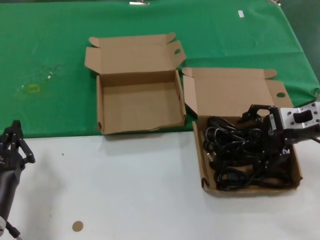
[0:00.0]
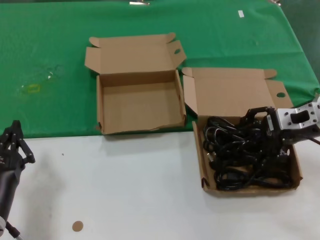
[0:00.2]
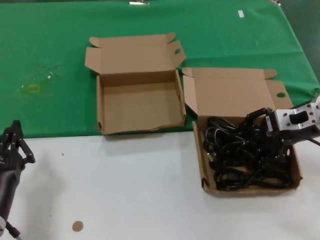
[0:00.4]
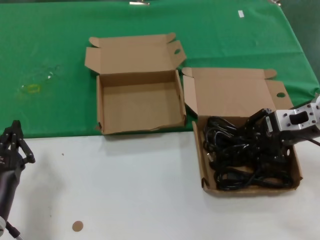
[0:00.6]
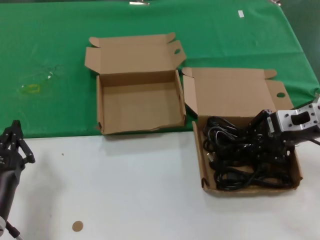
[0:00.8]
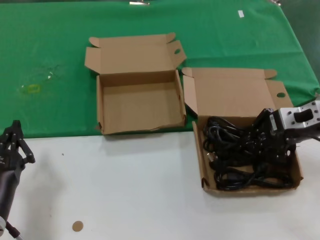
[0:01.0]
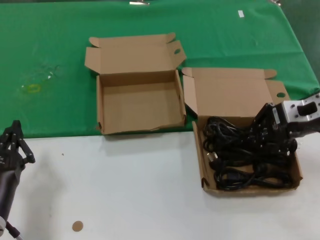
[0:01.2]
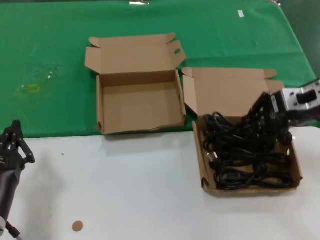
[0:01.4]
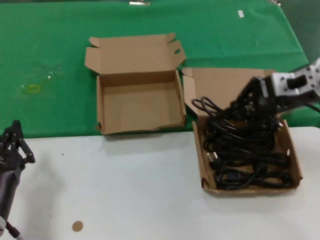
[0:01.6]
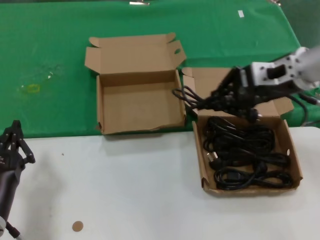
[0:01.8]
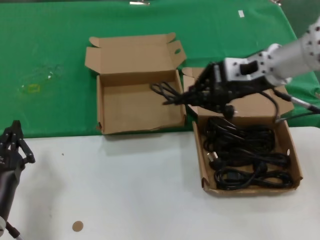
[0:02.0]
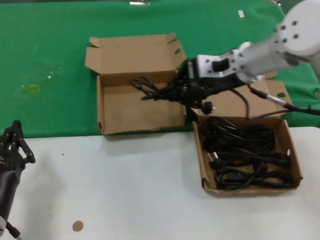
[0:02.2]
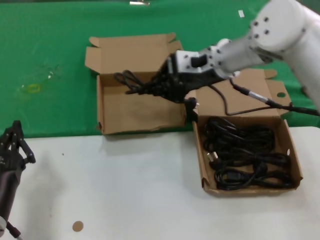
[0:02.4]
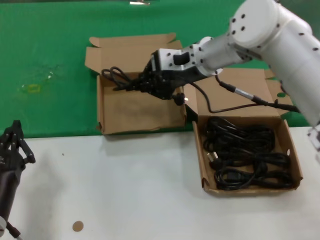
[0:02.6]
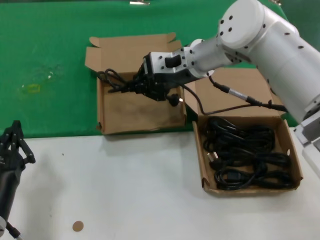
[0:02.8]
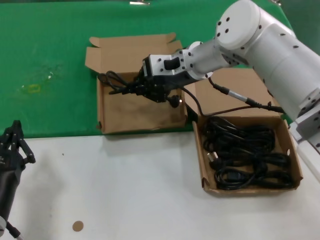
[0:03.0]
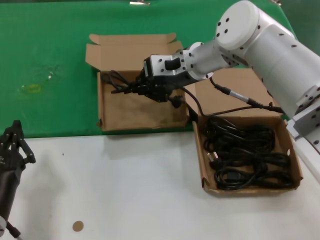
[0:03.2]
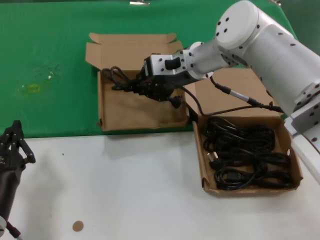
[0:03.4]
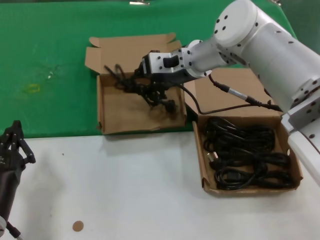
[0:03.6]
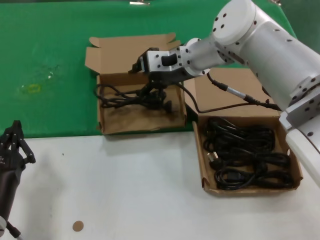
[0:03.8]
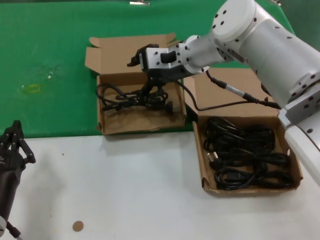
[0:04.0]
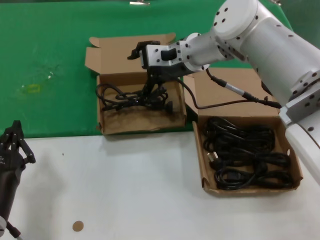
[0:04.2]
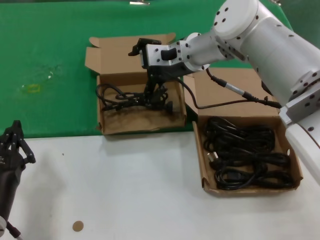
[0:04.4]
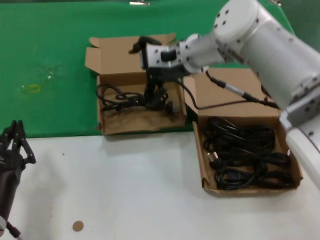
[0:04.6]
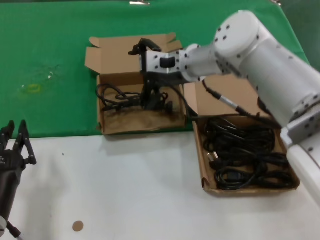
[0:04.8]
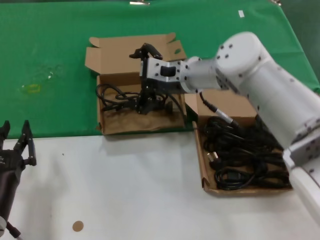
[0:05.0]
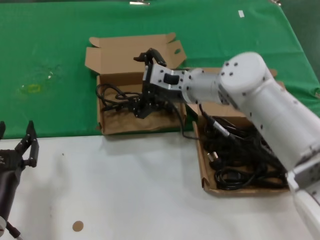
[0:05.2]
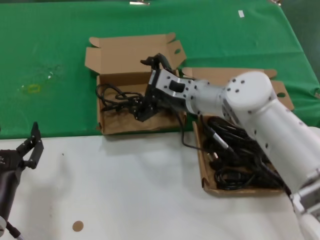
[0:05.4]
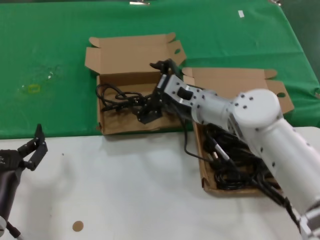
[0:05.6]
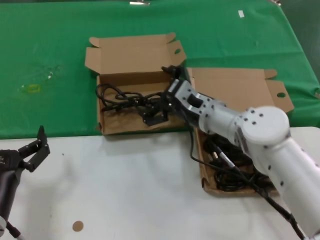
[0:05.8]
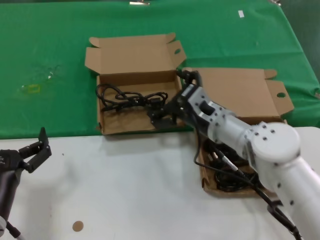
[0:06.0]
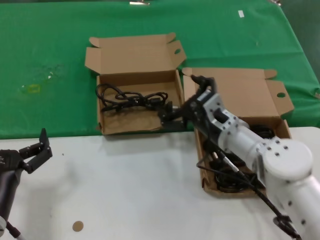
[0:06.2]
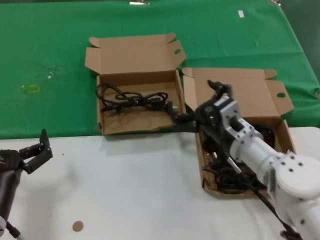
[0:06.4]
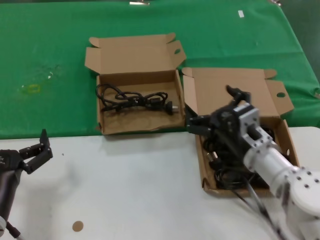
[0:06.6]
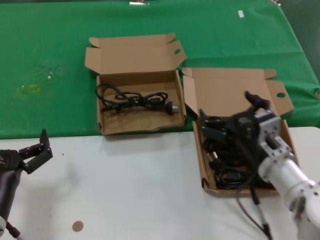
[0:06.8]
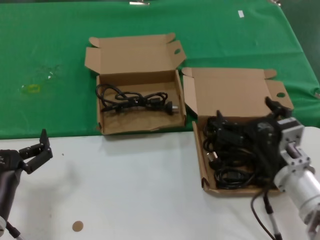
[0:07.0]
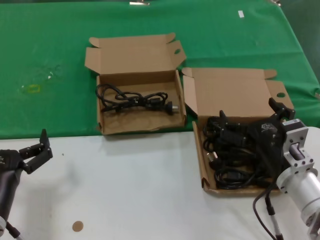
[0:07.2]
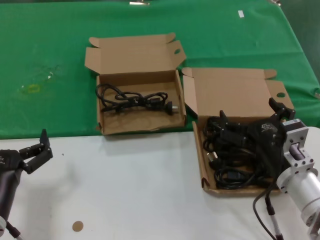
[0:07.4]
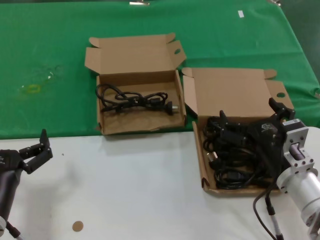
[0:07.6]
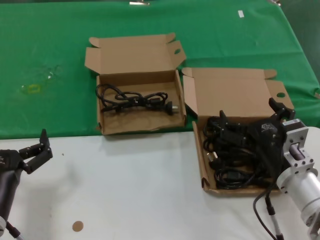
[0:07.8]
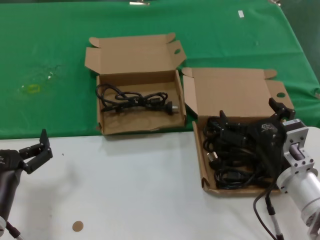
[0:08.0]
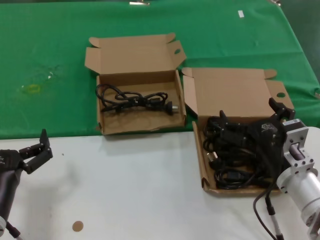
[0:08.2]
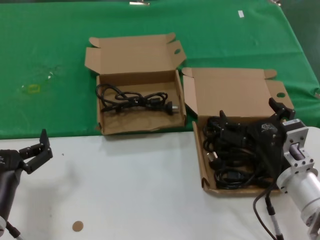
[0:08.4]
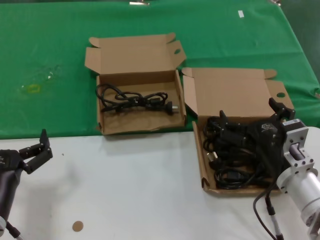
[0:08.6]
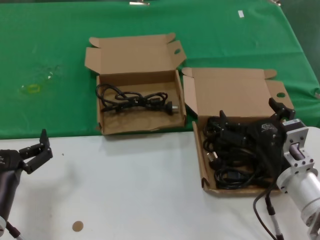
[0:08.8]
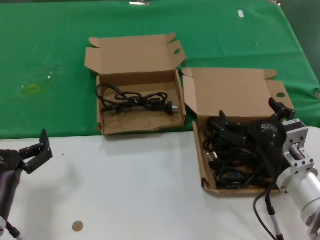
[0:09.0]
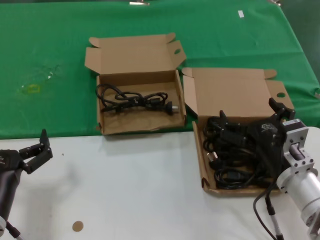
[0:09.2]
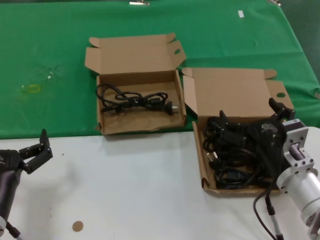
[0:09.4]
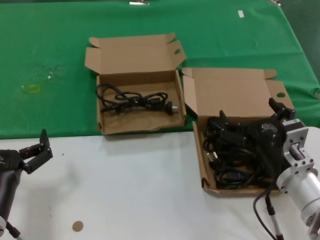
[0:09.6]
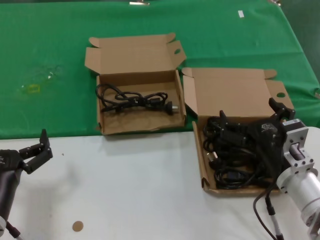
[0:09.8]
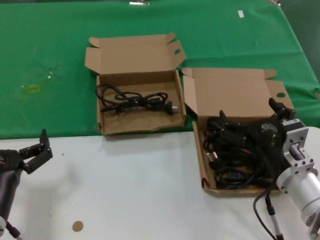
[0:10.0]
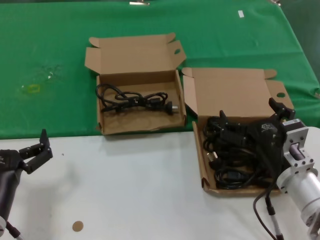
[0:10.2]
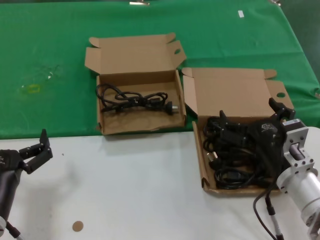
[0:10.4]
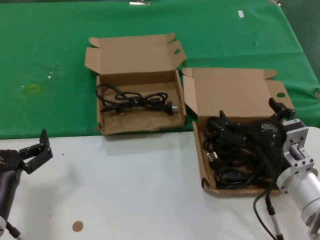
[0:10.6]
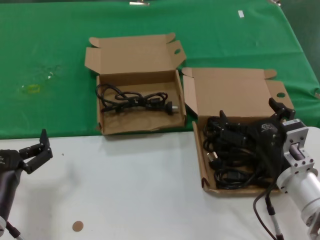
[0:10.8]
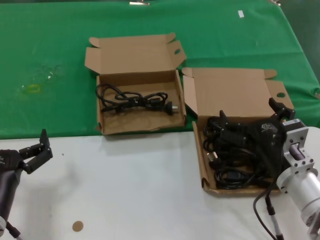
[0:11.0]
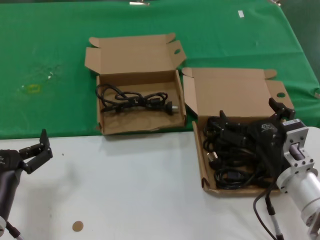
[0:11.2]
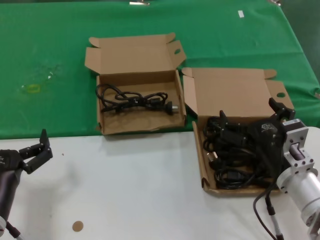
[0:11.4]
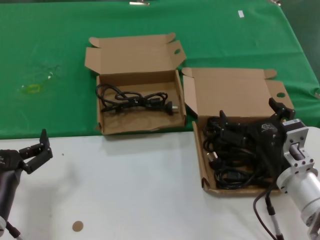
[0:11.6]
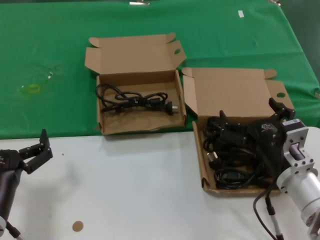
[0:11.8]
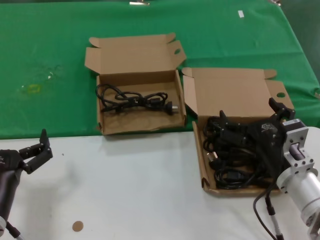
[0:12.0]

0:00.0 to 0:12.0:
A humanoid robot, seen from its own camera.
Task of the whole recording: take the parts from the box containing them and put them into an empty box.
Step, 0:00.8 to 0:04.0: Place the data cable in the another box.
0:00.0 to 0:01.6: The right hand is displaced upward by roughly 5 cm.
0:01.6 to 0:03.0: The right hand is displaced to the left and forward by roughly 25 cm.
0:03.0 to 0:04.4: Neither hand changes place.
0:04.4 to 0:06.0: The right hand shifts about 20 cm downward and backward.
0:06.0 to 0:07.6: The right hand shifts some 15 cm backward and to the right.
0:07.6 to 0:12.0: The two hands keep their place.

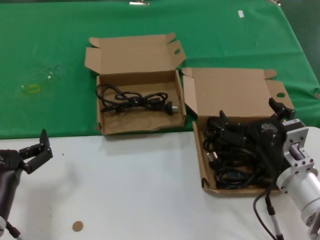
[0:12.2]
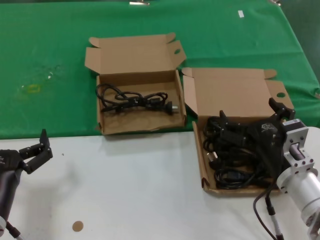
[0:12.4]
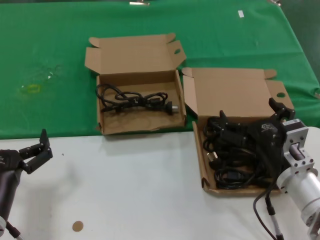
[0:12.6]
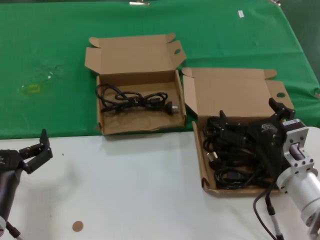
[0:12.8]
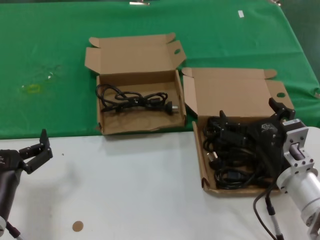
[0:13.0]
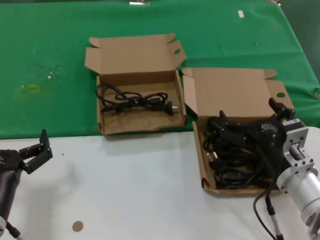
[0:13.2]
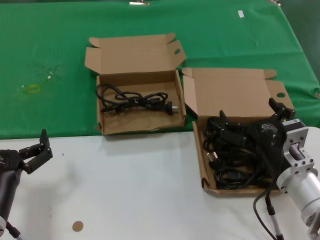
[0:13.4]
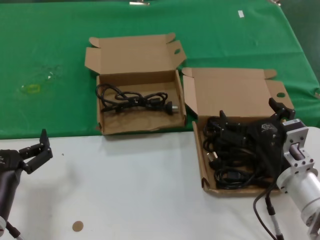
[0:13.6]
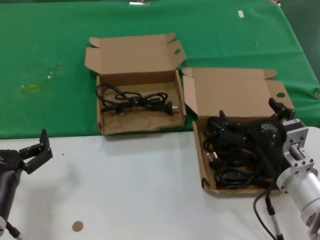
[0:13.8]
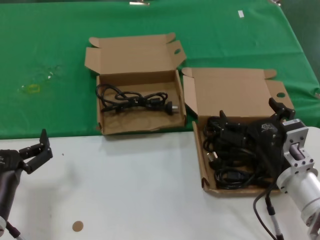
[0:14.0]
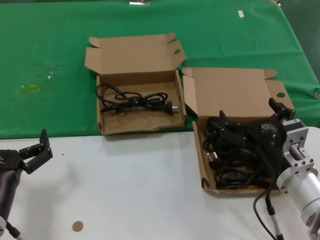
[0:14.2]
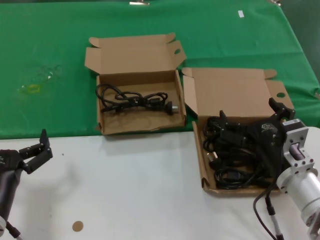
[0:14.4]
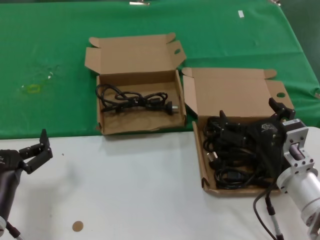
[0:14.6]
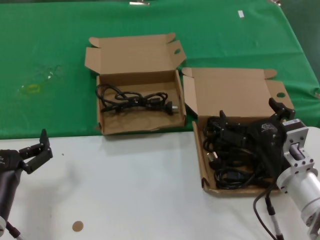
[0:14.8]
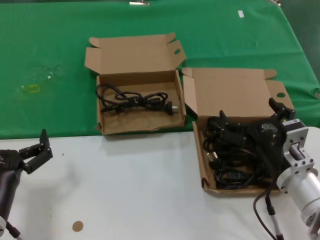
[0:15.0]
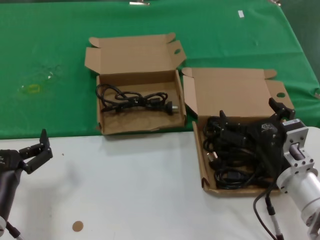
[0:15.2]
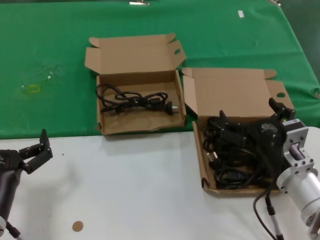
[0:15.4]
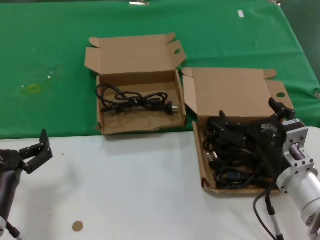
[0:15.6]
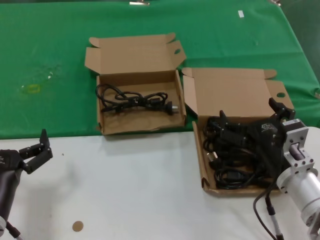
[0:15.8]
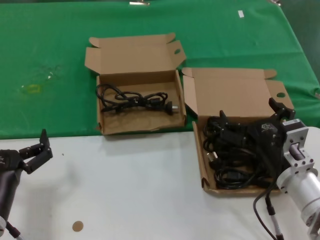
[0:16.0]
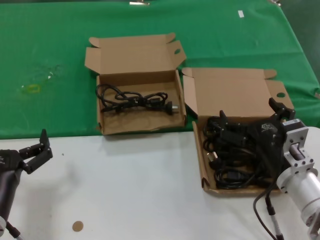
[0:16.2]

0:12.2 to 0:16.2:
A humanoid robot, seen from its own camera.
Task of the whole recording: take the parts from the box containing them and put them into an empty box.
0:12.2 to 0:16.2: The two hands keep their place.
